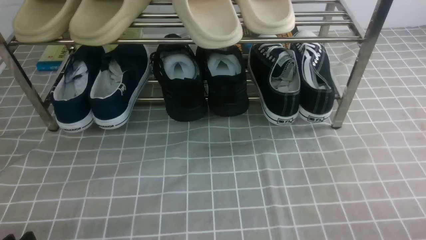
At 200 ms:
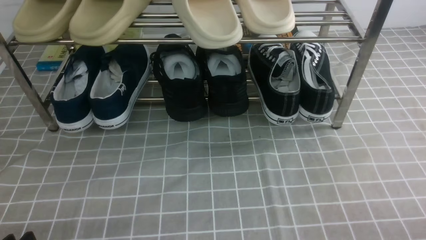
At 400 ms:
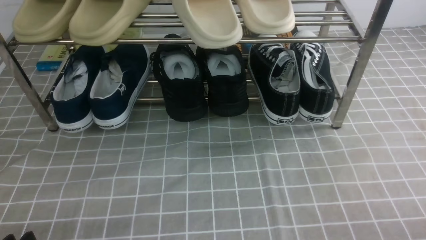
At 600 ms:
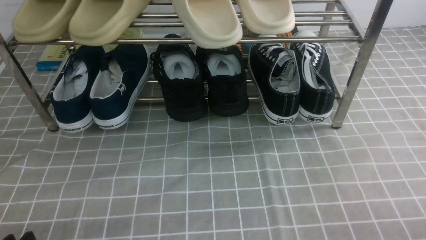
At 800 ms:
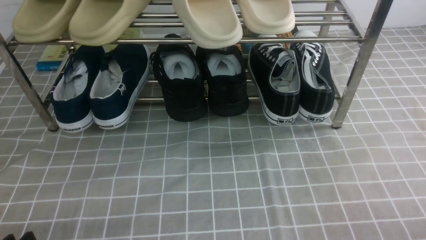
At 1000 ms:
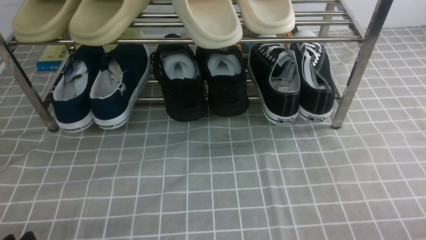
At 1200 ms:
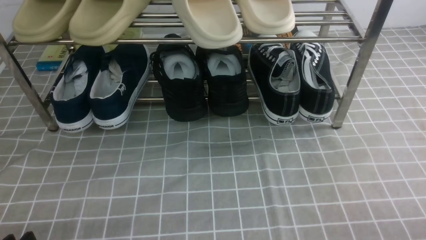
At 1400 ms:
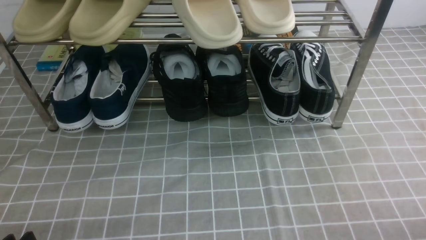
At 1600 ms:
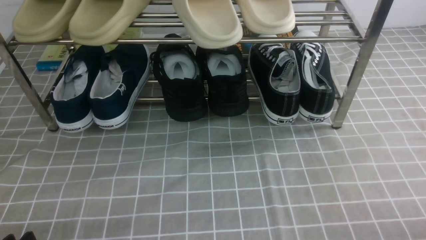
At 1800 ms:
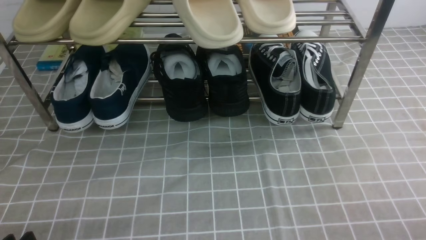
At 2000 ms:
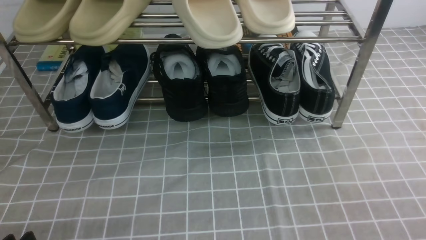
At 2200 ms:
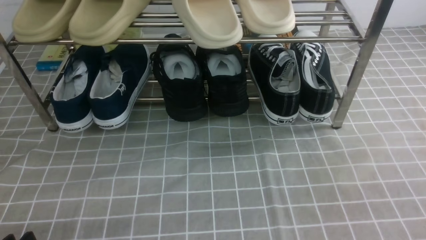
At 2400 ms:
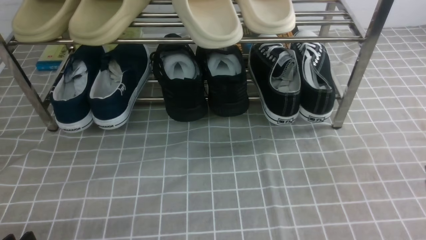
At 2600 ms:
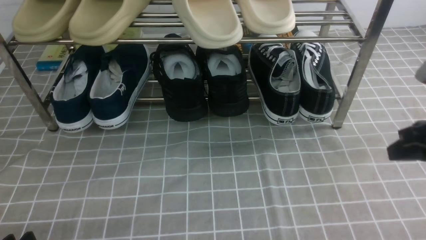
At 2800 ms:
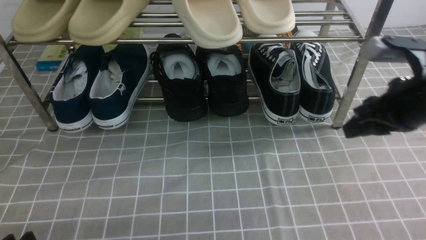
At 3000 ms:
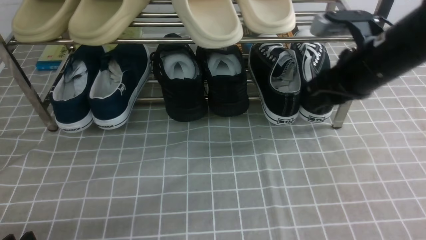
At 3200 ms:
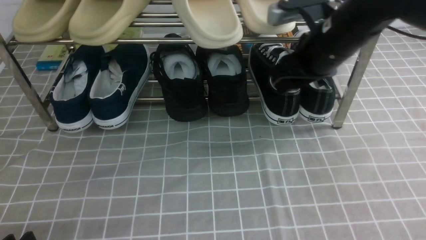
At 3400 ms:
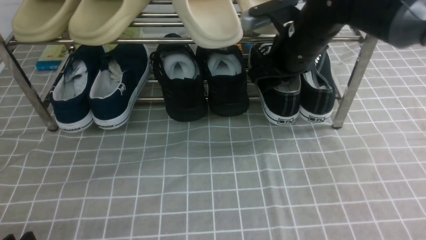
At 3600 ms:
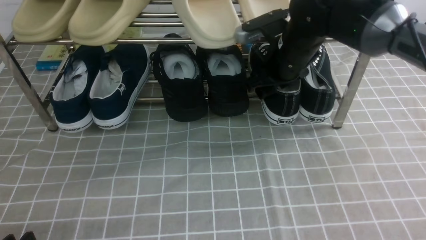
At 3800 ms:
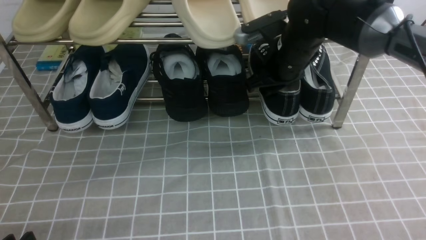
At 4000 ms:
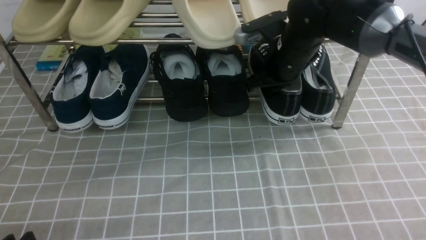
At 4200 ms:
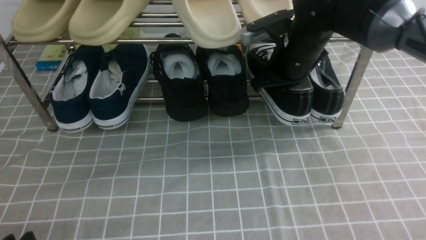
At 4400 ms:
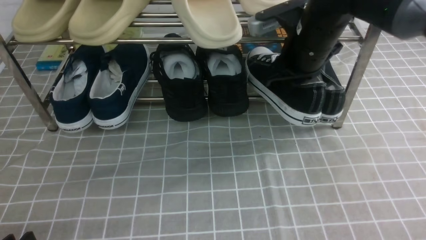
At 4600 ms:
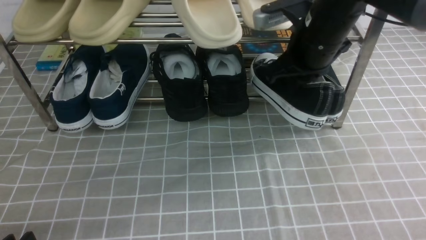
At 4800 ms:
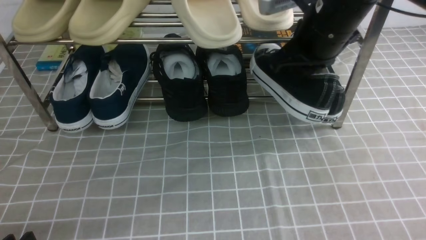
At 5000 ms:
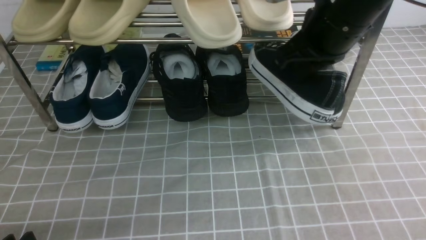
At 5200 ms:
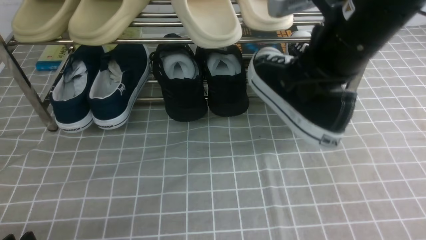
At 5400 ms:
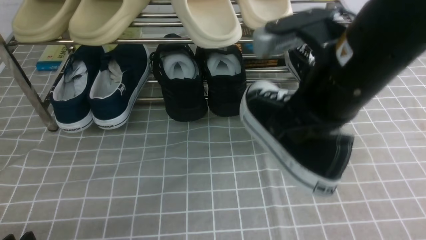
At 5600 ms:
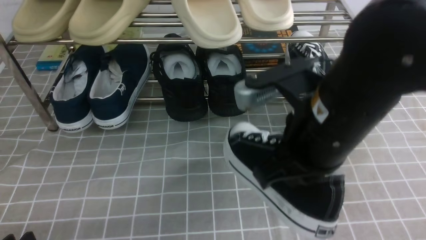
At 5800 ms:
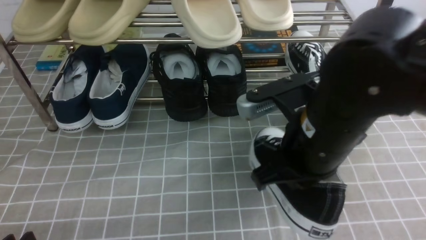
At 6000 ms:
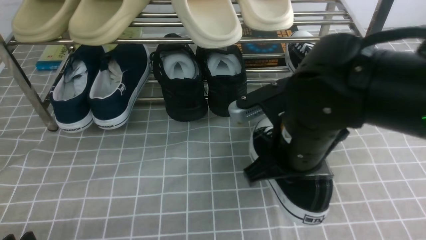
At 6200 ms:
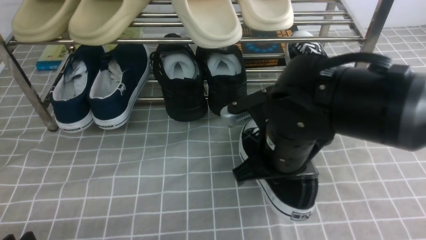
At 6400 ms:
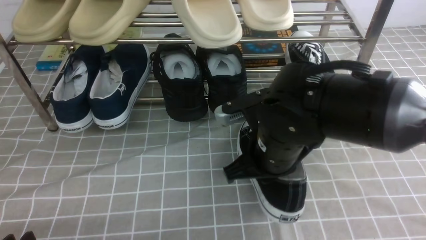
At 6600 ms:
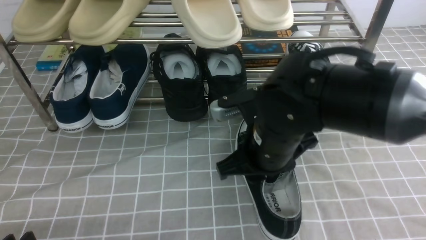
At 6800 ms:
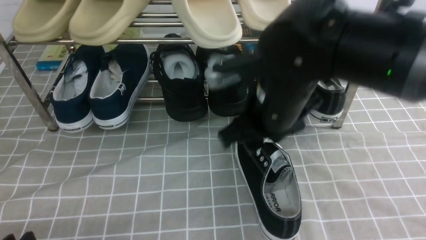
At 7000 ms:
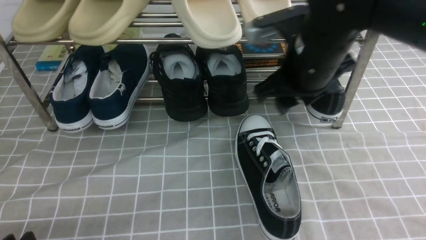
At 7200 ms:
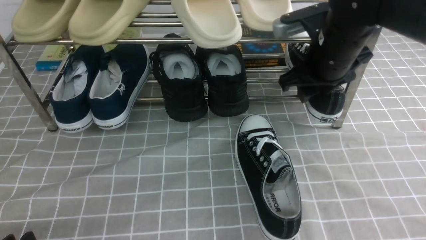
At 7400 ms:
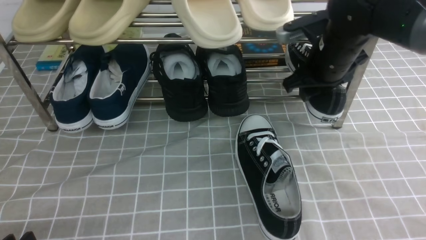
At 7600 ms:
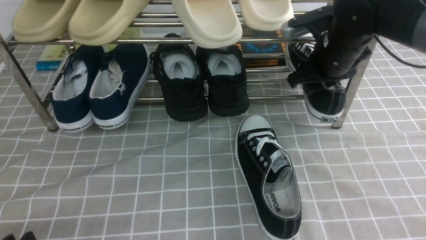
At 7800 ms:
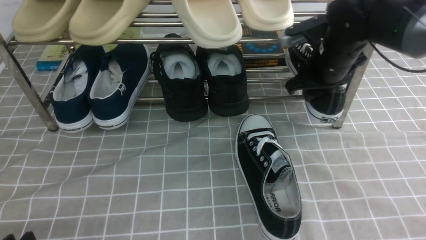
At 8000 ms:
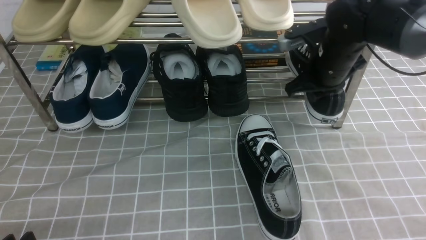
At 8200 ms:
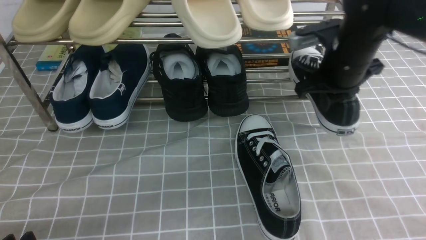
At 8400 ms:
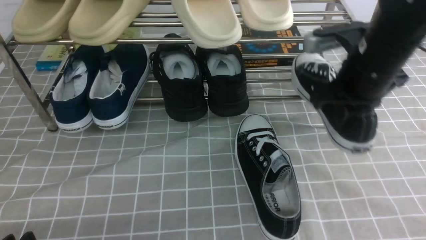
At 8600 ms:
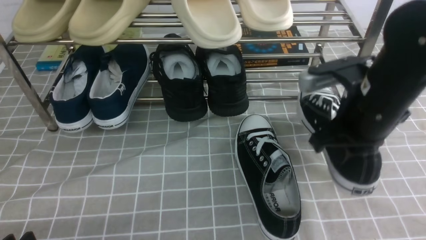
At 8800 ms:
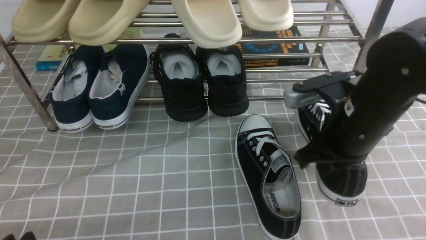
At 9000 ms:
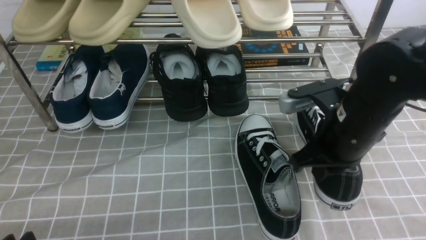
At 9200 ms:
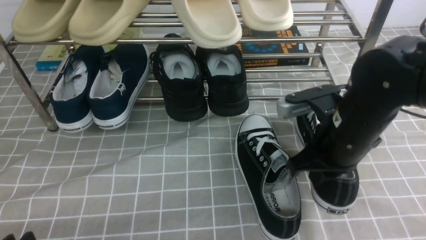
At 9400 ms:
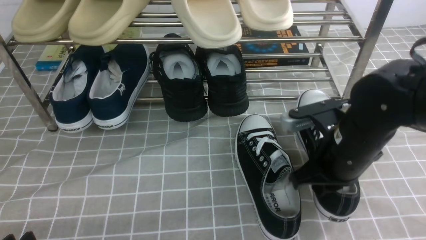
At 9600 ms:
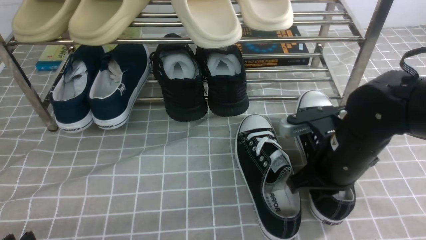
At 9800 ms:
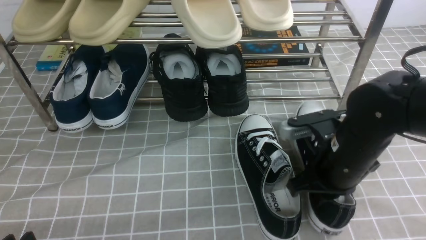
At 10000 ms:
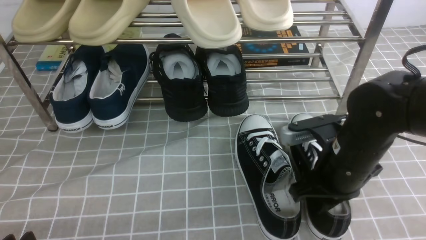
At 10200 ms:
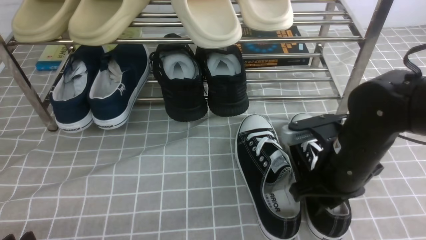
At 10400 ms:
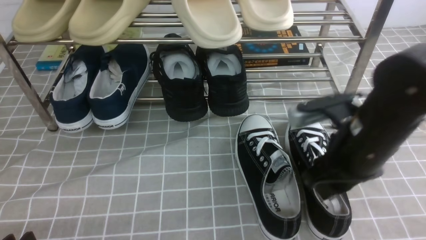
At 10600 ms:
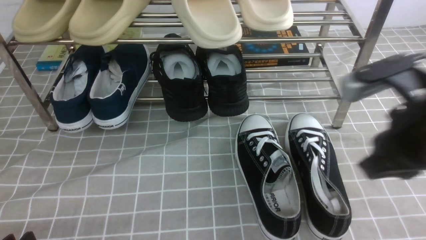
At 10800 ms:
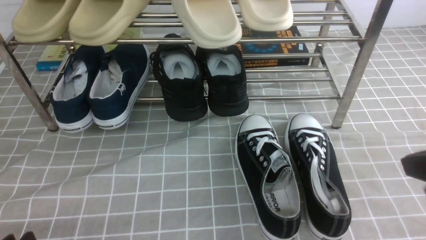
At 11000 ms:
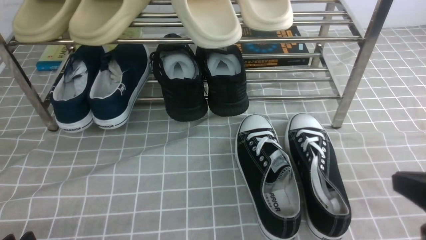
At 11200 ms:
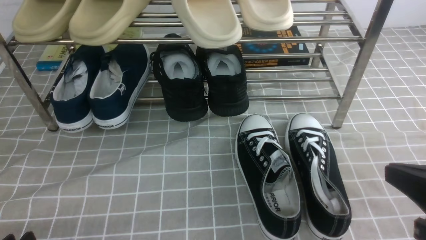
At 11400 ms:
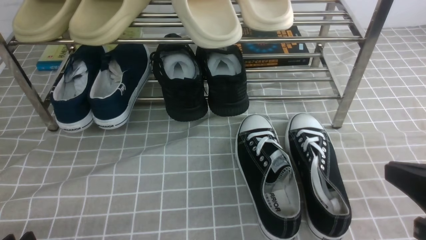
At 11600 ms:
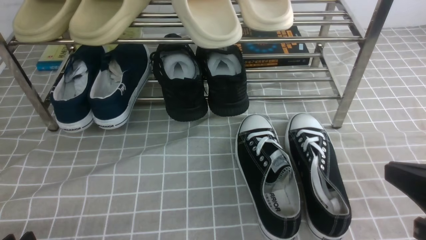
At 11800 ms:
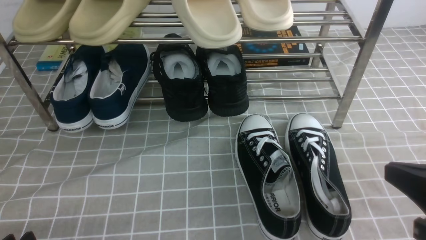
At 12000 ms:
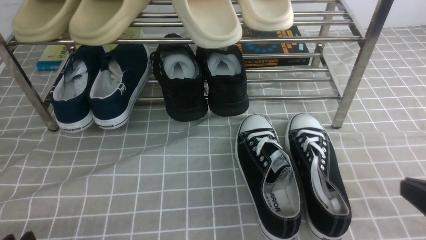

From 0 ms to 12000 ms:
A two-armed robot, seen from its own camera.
Step, from 0 ms to 4200 ms: use the right arm to clamp a shoe on the right side of the shoe rack.
Step, from 4400 ms to 6600 ms: use the right arm to take out the clamped shoe from the shoe rack and put it down.
Step, from 7000 ms to 8200 ms: use the right arm to clamp a shoe on the right side of the shoe rack.
Step, from 8400 ms to 10400 ms: use the right arm to take out the clamped shoe from the shoe rack and put it down.
From 1600 ms to 3000 ms: The right gripper moves forward, upward and to the left, roughly 35 cm, and closes and opens again.
From 3000 ms to 4400 ms: The right gripper goes some 10 cm to the left and forward, and closes its fingers.
From 4400 ms to 6000 ms: The right gripper travels backward by some 15 cm.
From 6000 ms to 7600 ms: The right gripper goes roughly 20 cm forward and to the right, and opens.
From 7600 ms to 9000 ms: The right gripper is displaced backward by roughly 15 cm, and closes its fingers.
From 9000 ms to 10400 ms: The right gripper opens its fingers.
From 10400 ms to 12000 ms: The right gripper goes approximately 15 cm backward and to the right, and closes its fingers.

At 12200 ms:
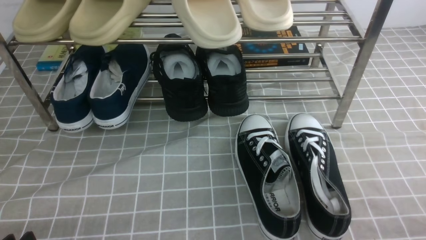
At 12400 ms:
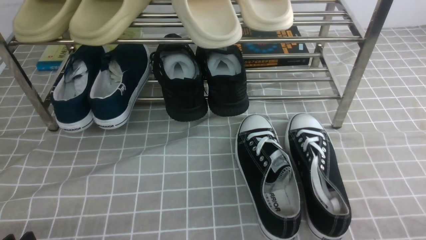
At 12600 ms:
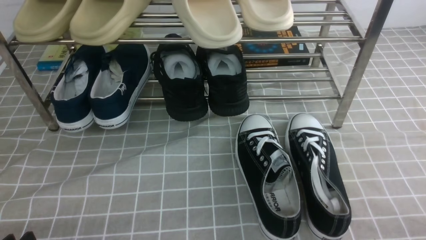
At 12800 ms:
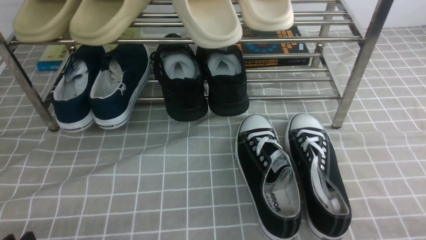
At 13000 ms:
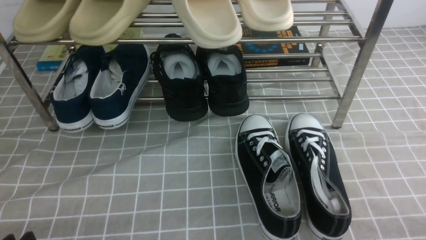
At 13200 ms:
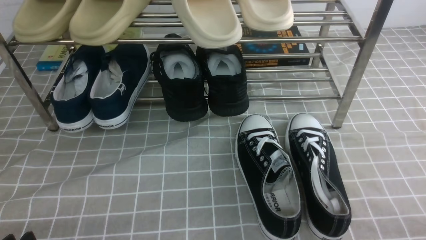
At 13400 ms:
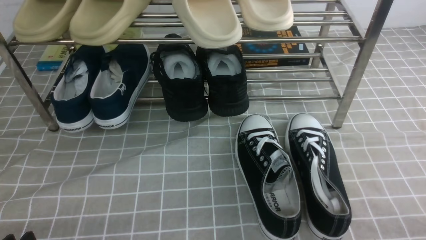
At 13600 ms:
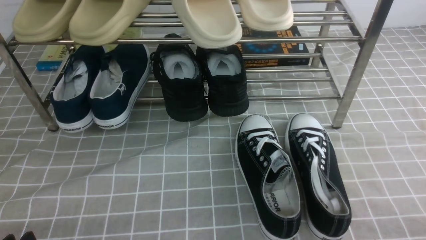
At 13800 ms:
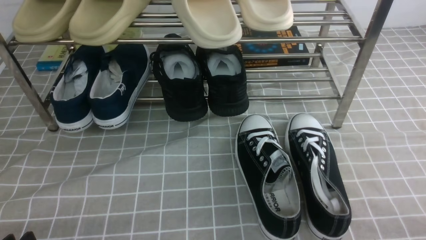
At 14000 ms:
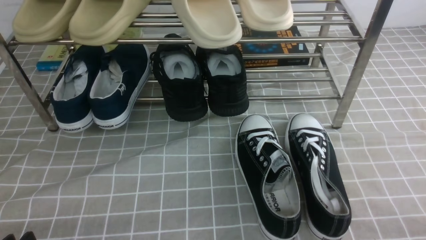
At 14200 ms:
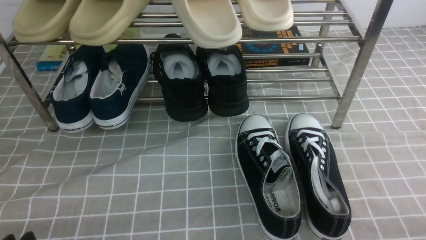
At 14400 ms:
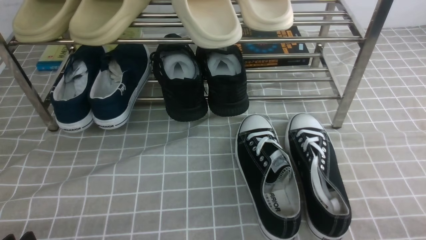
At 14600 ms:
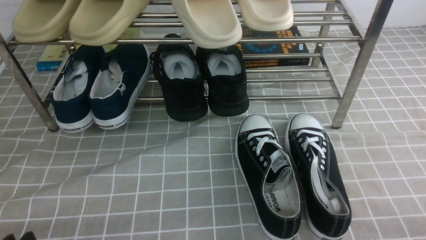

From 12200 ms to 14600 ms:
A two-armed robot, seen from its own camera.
From 13400 ms to 14600 ms: The two grippers keep their place.
